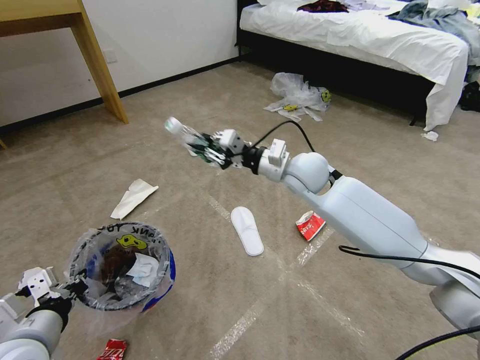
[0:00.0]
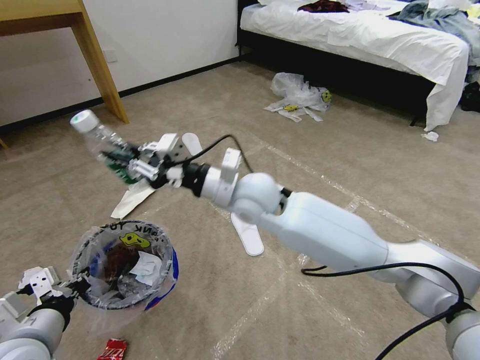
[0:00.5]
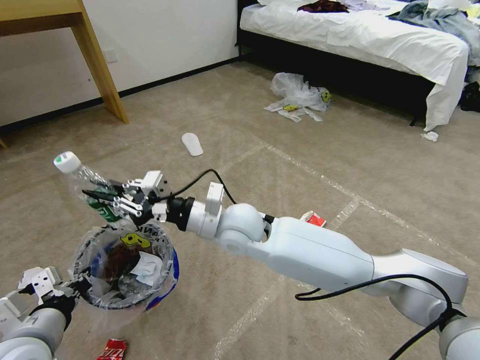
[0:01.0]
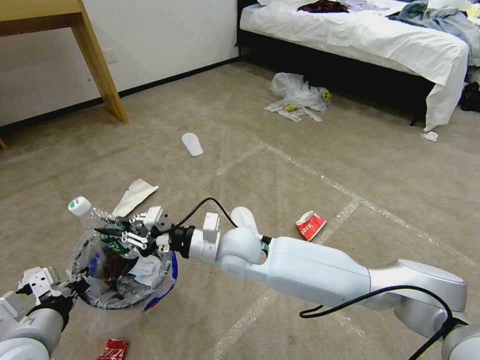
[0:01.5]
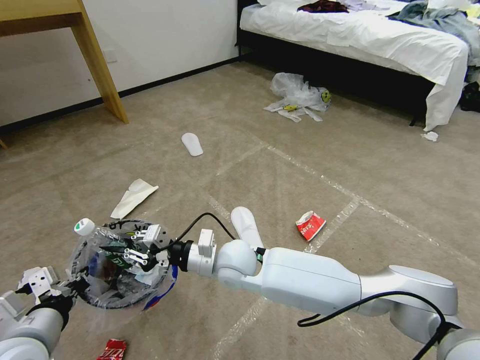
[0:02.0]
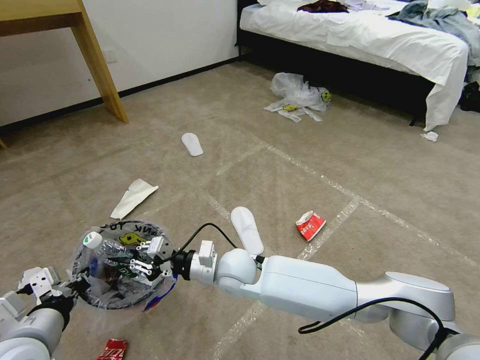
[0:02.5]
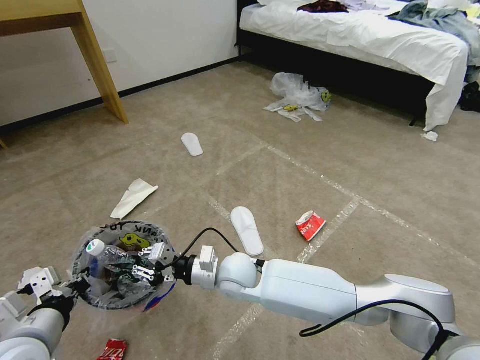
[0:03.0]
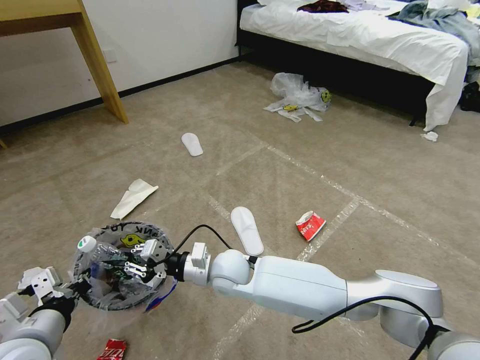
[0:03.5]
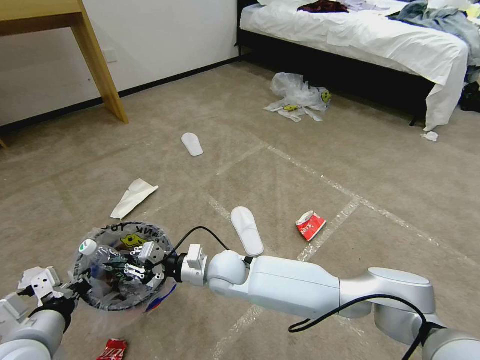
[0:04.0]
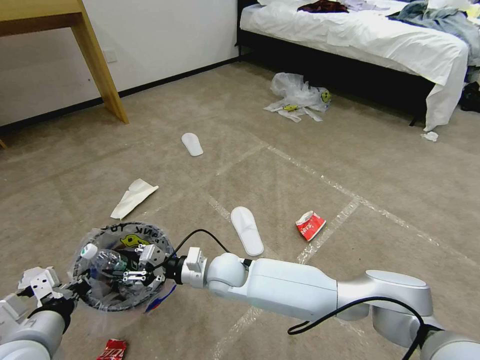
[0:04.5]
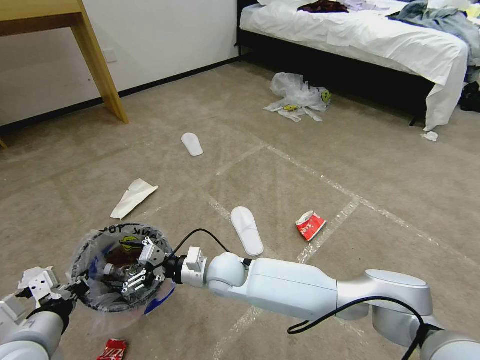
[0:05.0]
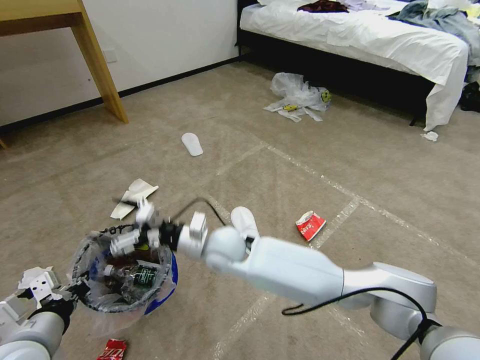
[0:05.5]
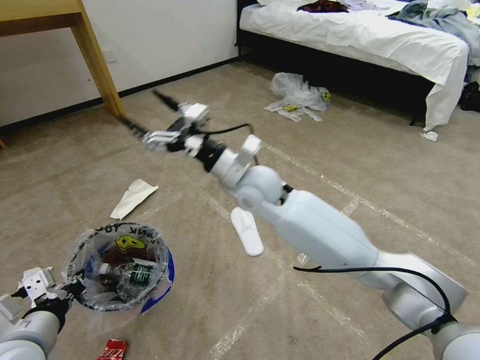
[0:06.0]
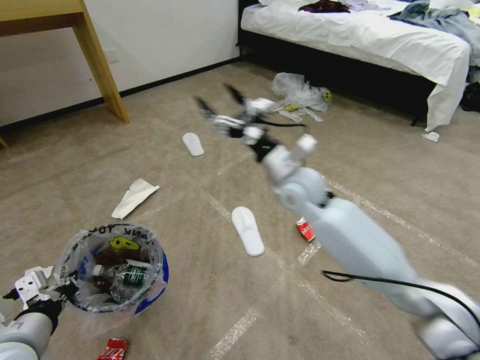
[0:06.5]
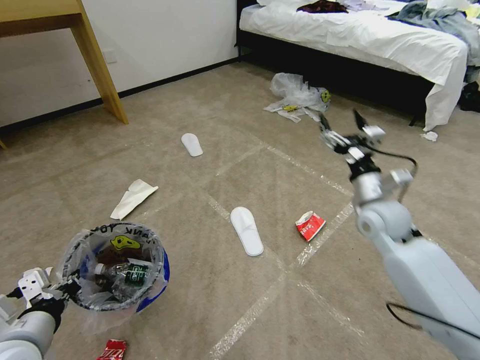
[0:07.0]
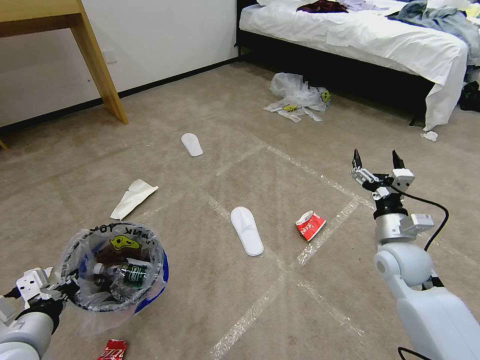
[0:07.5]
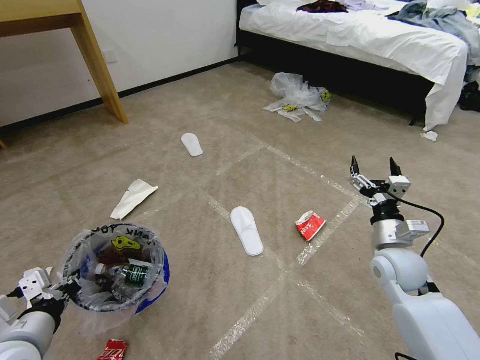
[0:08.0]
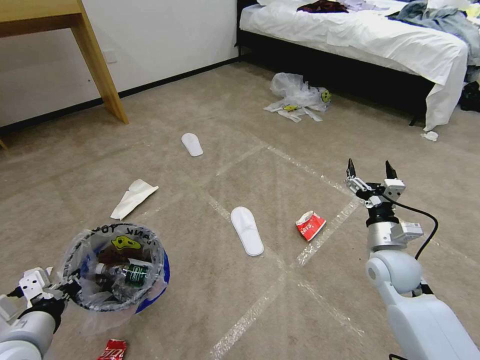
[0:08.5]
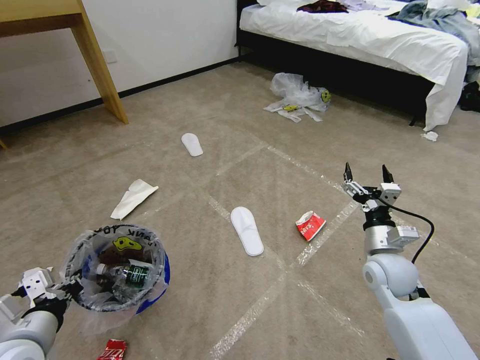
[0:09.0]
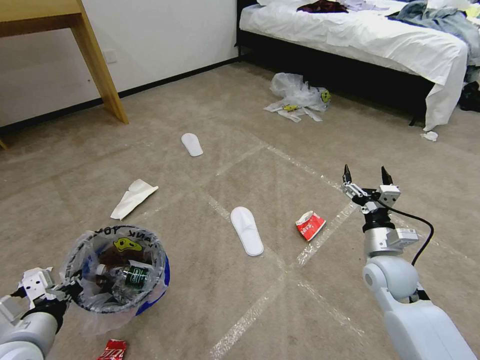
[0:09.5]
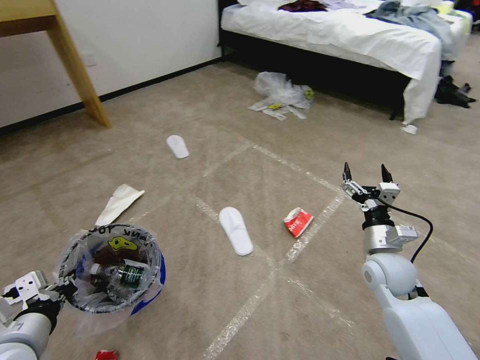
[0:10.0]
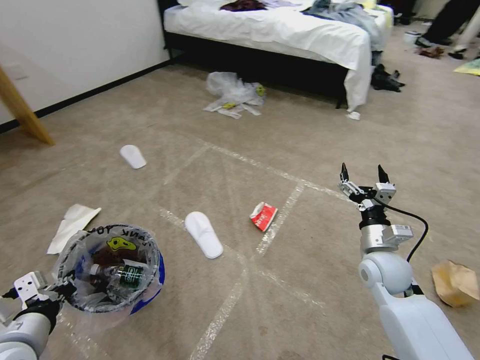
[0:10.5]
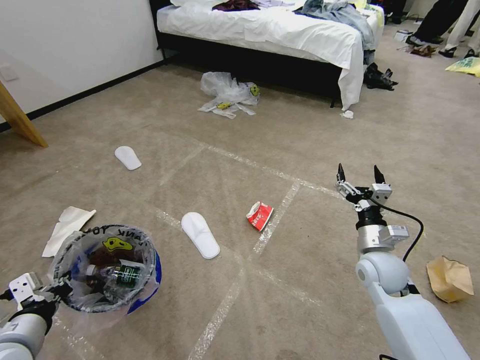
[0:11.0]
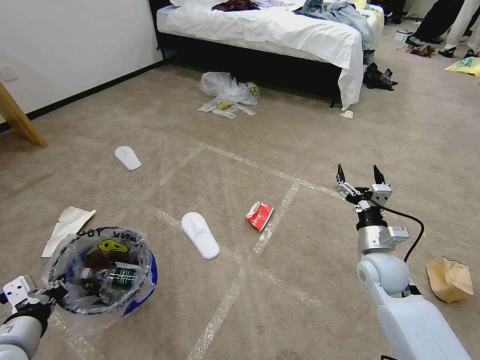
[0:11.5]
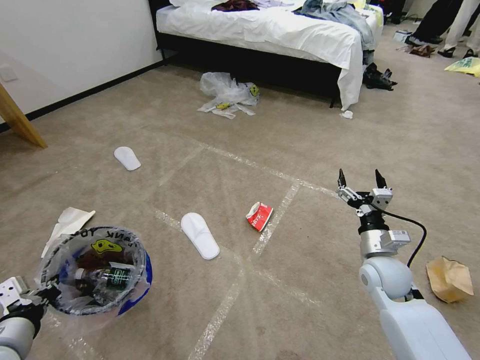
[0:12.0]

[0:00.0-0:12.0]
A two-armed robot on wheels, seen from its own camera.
Task of the whole recording: Pick up the trash bin and place the garbage on the floor into it.
0:00.0 to 0:02.0: The right gripper is displaced to the left, downward and backward by about 25 cm.
0:02.0 to 0:04.0: The right gripper changes place by approximately 5 cm.
0:04.0 to 0:06.0: The right gripper travels upward and forward by approximately 20 cm, and opens its fingers.
0:06.0 to 0:08.0: The right gripper heads to the right and downward, covering about 35 cm.

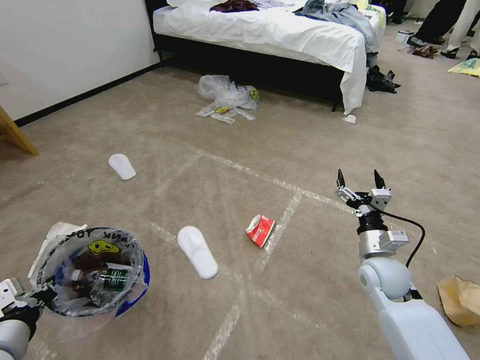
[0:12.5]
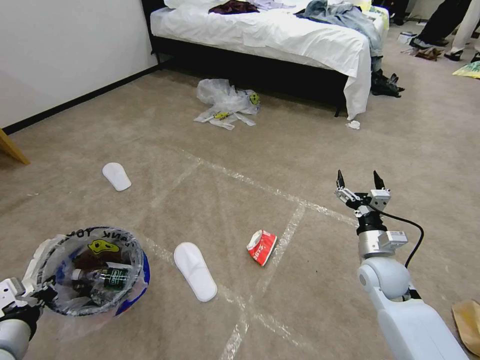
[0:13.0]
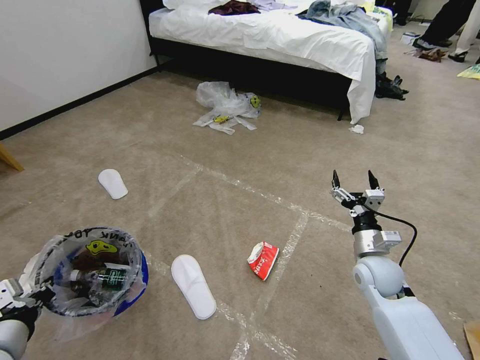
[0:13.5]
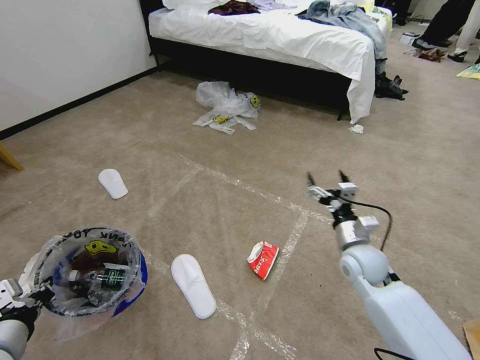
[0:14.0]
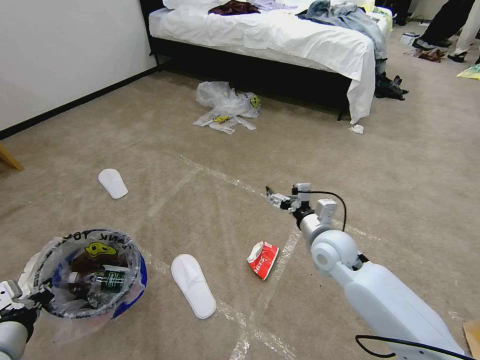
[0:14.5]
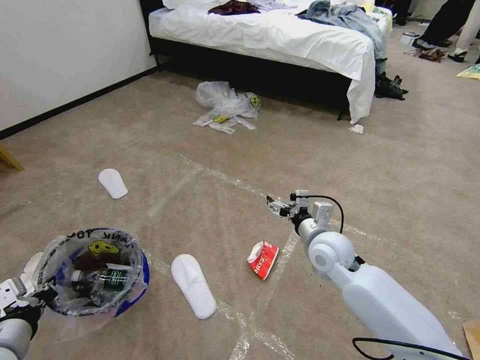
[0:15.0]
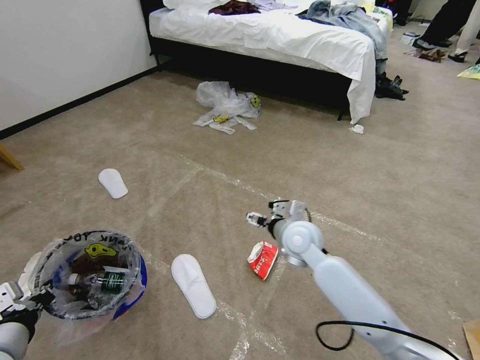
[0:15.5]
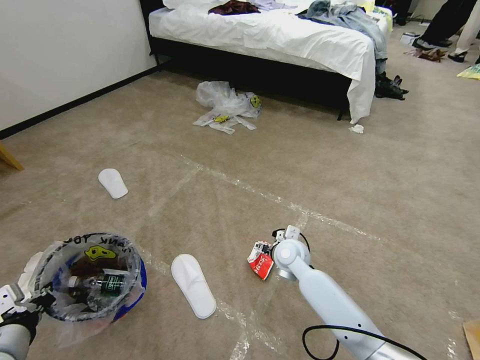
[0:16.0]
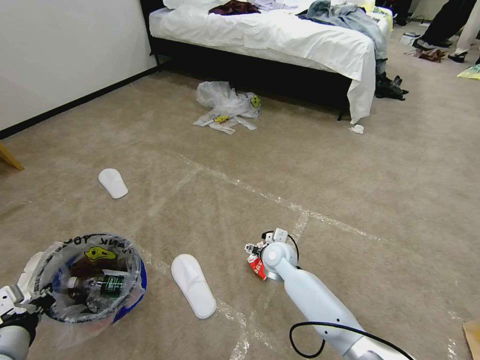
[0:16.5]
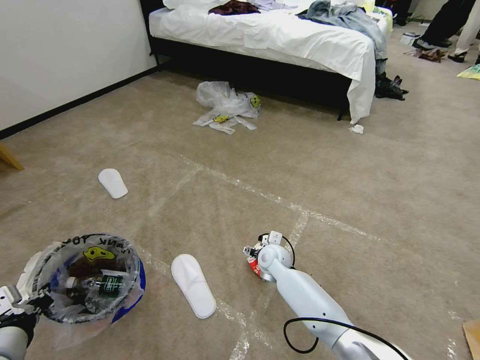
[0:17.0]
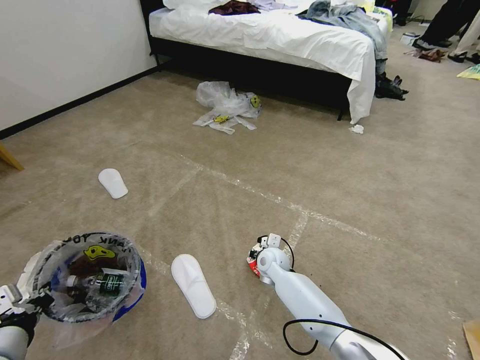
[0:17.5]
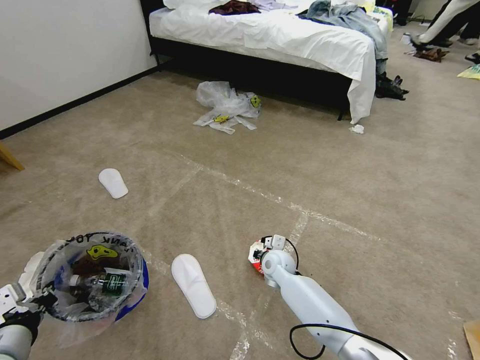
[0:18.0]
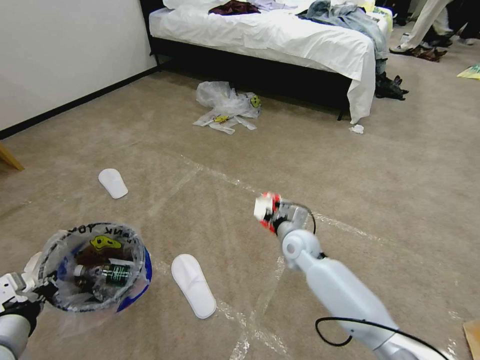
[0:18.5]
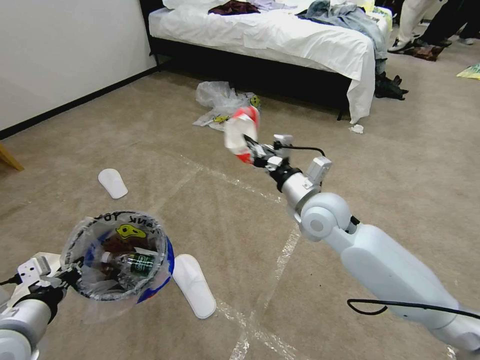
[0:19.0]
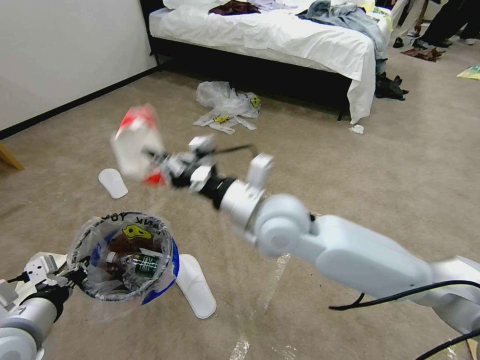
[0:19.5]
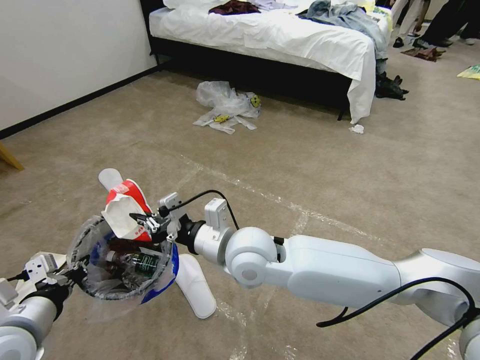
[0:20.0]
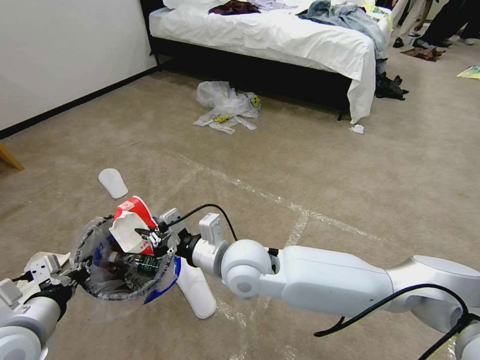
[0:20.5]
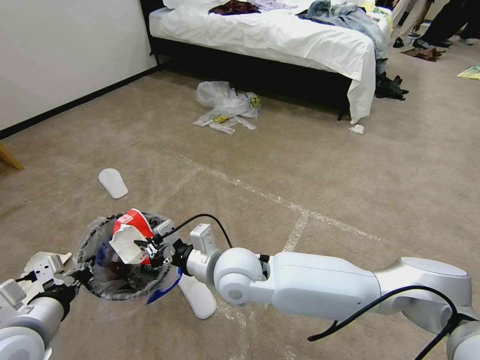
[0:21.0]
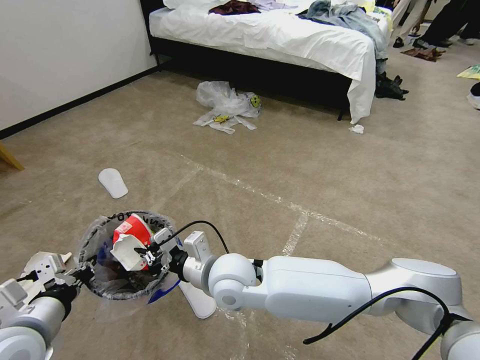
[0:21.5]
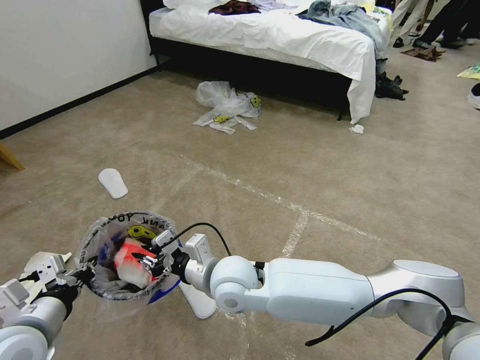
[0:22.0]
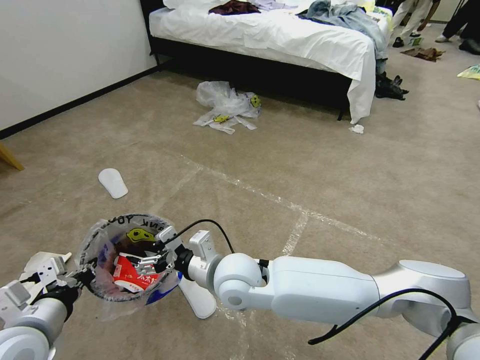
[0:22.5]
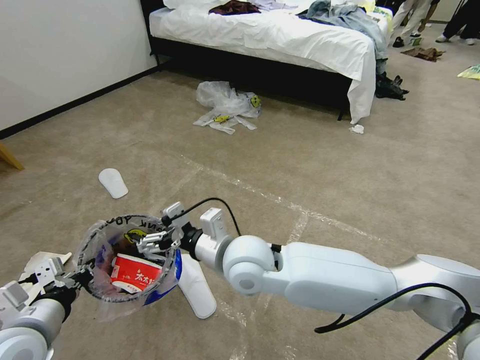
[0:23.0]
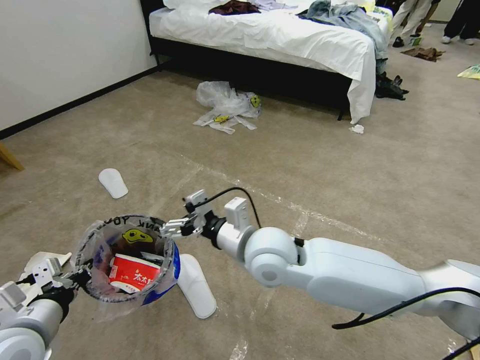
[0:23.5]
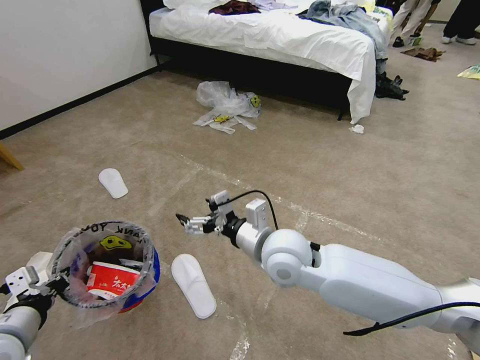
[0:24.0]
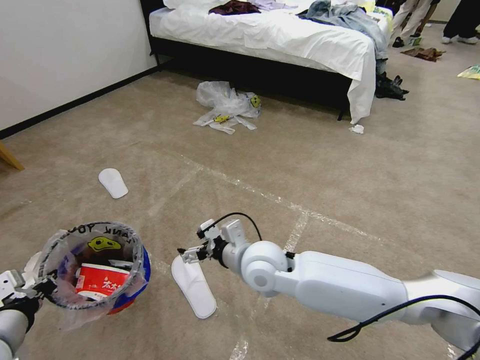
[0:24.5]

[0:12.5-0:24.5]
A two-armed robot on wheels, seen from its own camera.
Task of the whole recording: Pick up the trash bin and place the garbage on the floor into it.
0:12.5 to 0:14.5: The right gripper shifts roughly 10 cm to the left.
0:14.5 to 0:16.5: The right gripper shifts some 15 cm downward and to the left.
0:16.5 to 0:18.5: The right gripper travels upward by approximately 5 cm, and closes.
0:18.5 to 0:20.5: The right gripper shifts some 25 cm to the left, upward and backward.
0:20.5 to 0:22.5: The right gripper opens up.
0:22.5 to 0:24.5: The right gripper shifts about 10 cm to the right, while the left gripper changes place by approximately 5 cm.

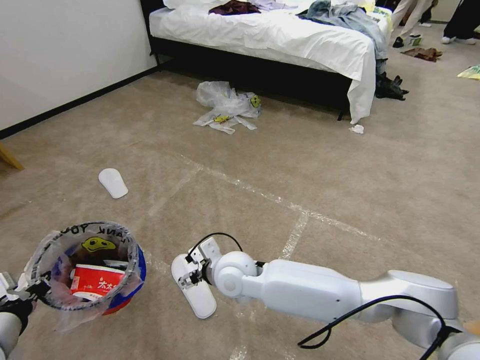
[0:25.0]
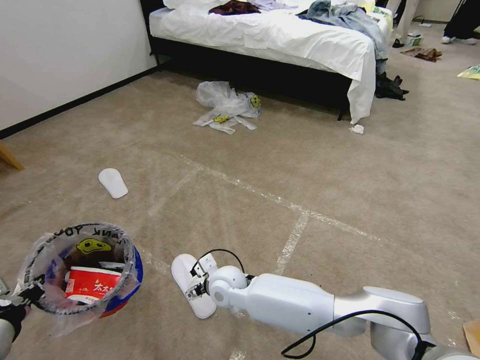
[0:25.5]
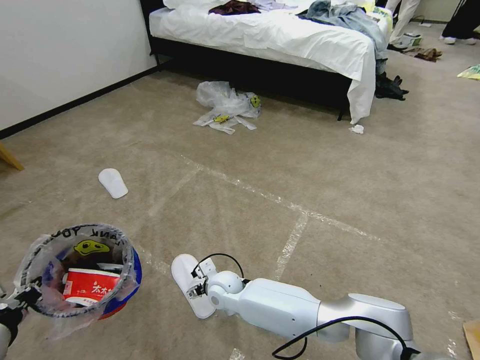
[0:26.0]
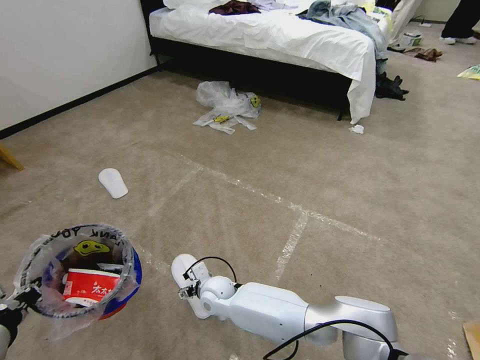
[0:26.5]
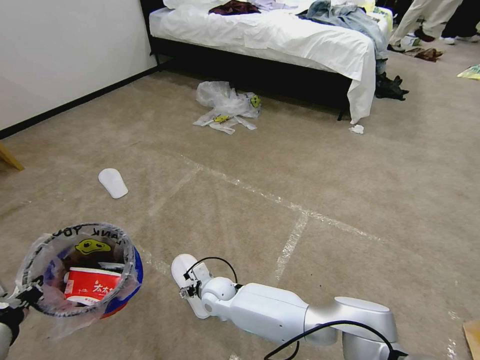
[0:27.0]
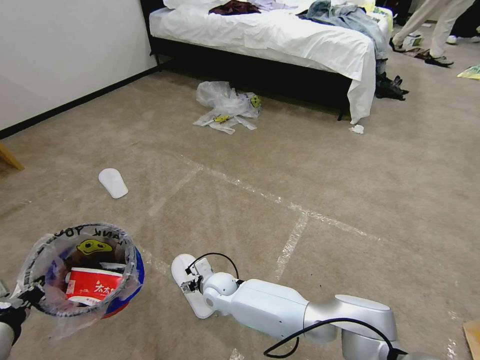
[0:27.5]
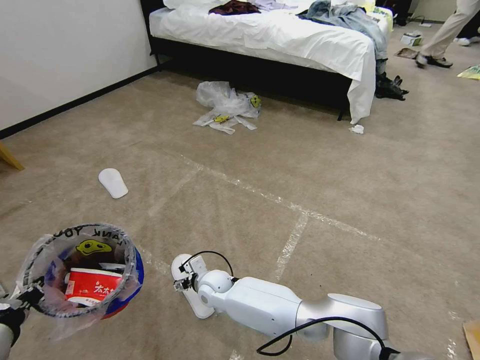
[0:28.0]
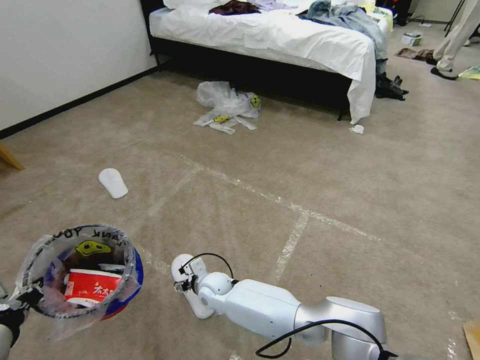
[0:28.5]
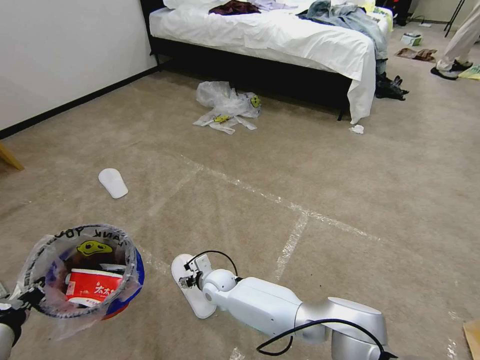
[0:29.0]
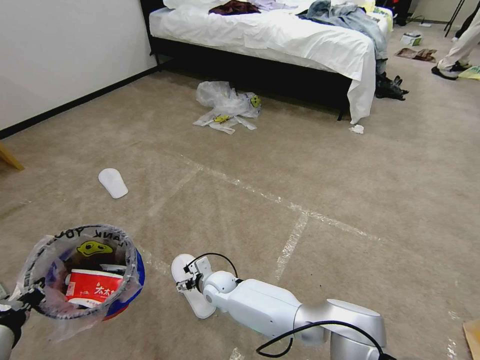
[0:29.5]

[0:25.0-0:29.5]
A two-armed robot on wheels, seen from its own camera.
Task of the whole recording: Pick up the trash bin and place the garbage on the floor into it.
0:25.0 to 0:27.0: The right gripper is displaced downward by about 15 cm.
0:27.0 to 0:29.5: The grippers stay close to where they were, moving slightly.
